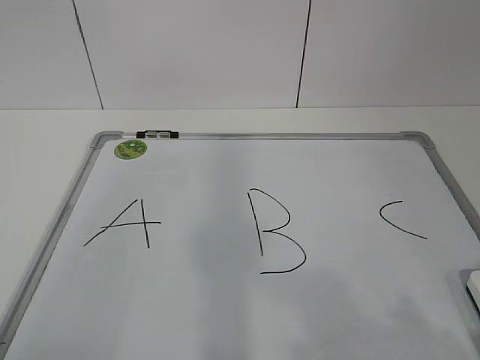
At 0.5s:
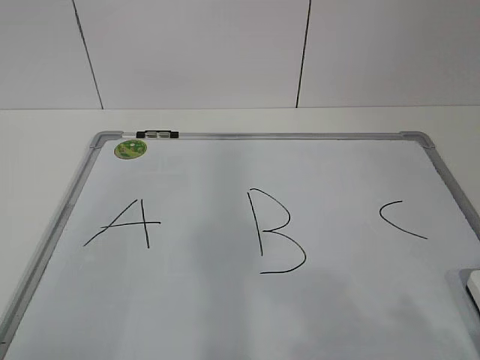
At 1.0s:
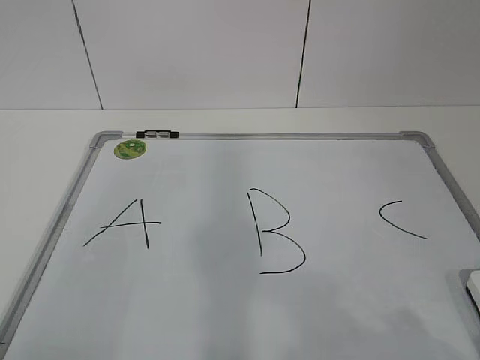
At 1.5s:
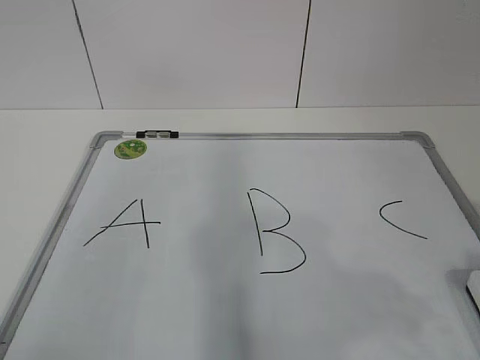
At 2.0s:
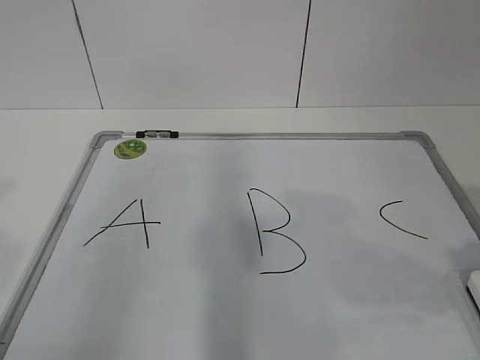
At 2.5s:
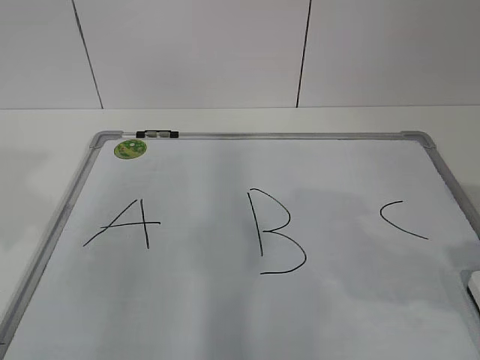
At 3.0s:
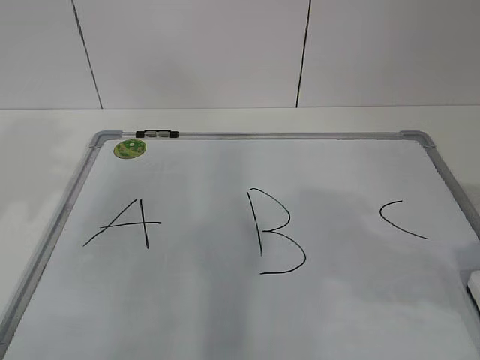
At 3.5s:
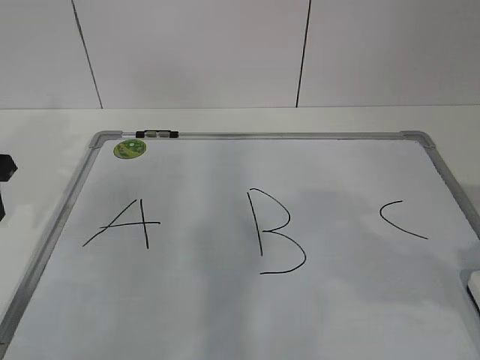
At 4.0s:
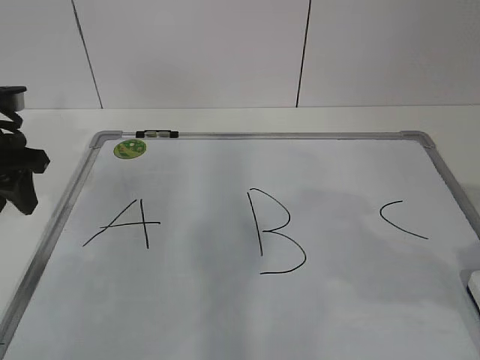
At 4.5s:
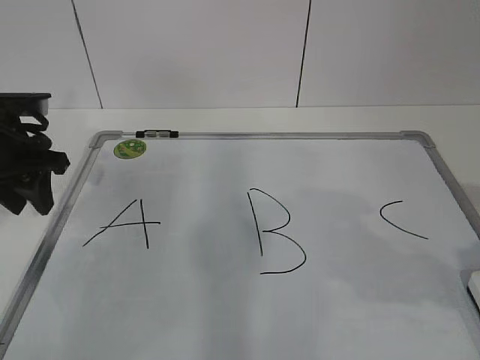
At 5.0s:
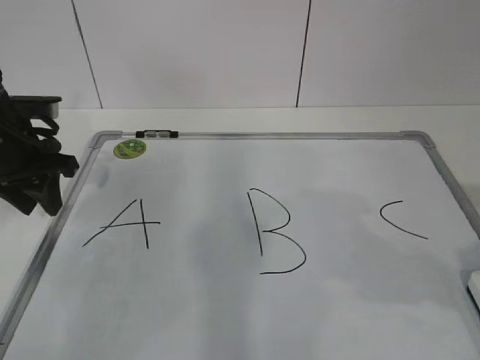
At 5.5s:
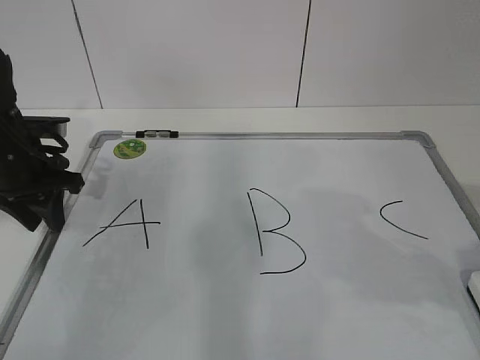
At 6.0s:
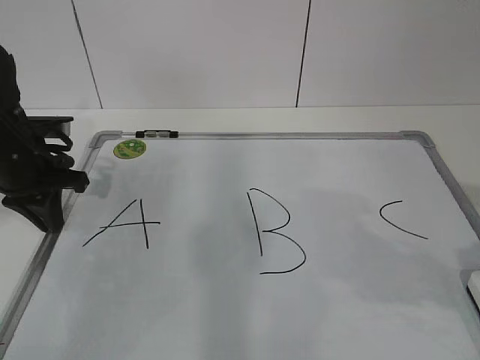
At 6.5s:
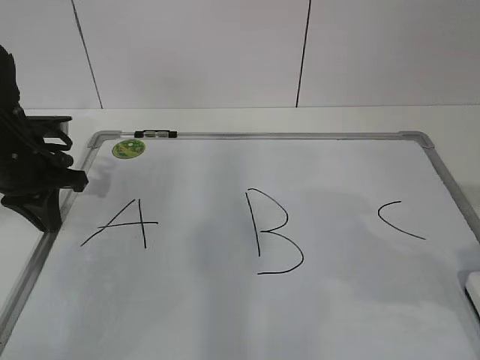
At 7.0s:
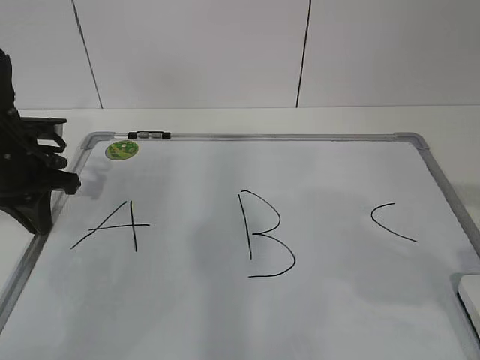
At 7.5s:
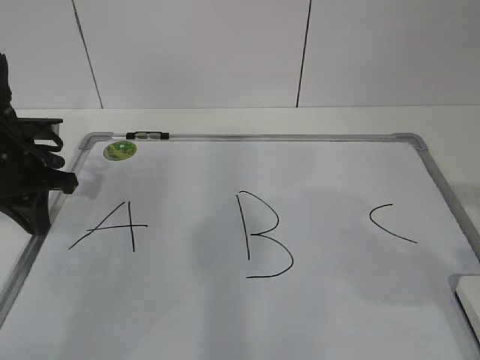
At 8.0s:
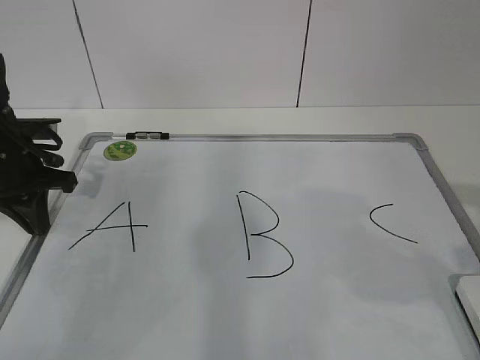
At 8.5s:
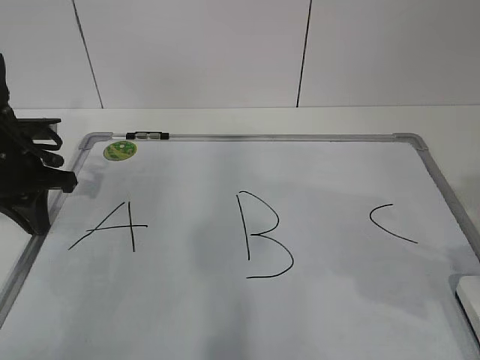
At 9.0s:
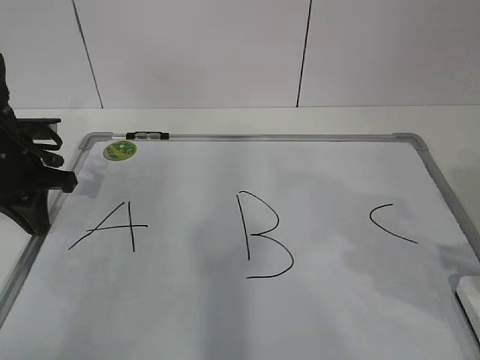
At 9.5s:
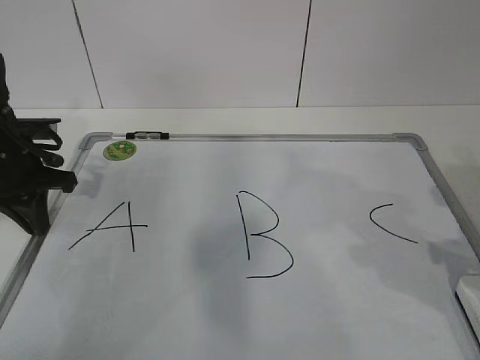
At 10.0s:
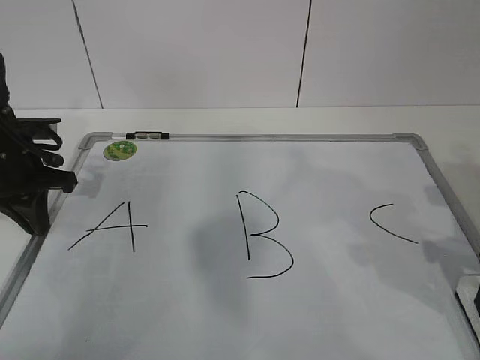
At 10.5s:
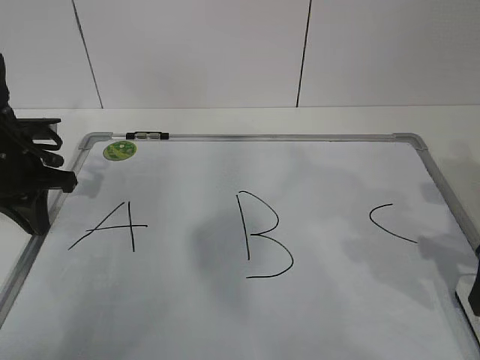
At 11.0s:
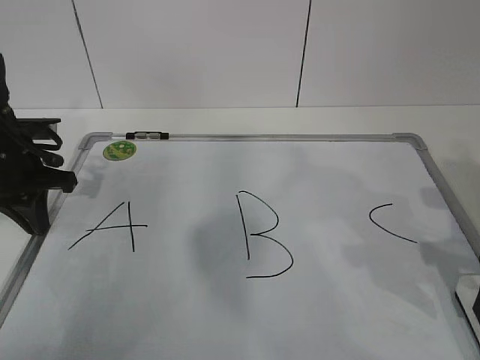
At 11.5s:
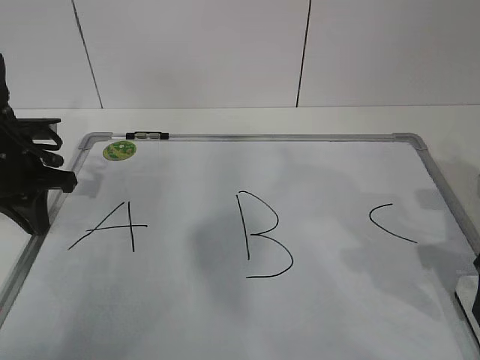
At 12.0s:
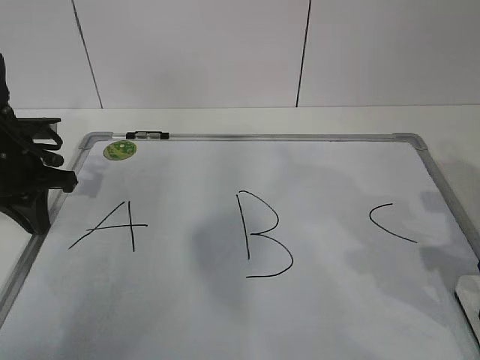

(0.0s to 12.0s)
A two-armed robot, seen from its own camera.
Task of the whole recording: pick up the eraser on the blackboard and erase the letter "B".
Step, 0.0s - 4.5s: Hold the drawing board steady with your left hand.
Step, 5.5s - 11.0s: Grab the eraser with your right hand.
2.0s - 4.0s: The left gripper heads forward and downward, covering approximately 30 cm.
4.0s - 6.0s: The left gripper travels downward by some 5 cm, and closes up.
6.0s - 8.0s: The right gripper opens.
8.0s - 10.0s: The right gripper travels forward and downward by approximately 15 cm, and opens its fingers.

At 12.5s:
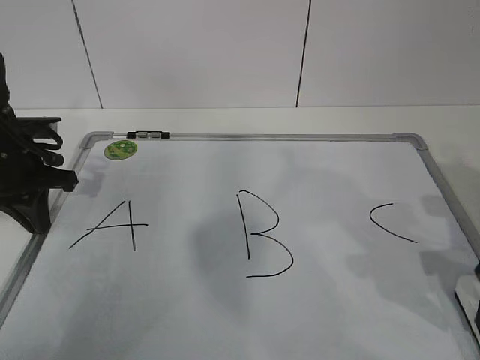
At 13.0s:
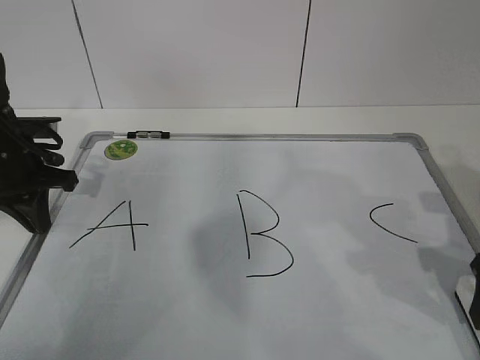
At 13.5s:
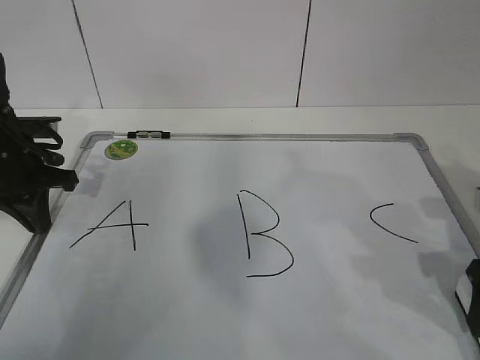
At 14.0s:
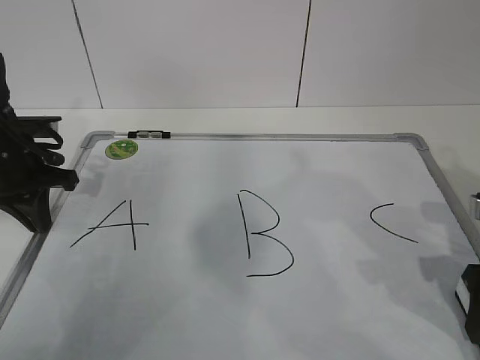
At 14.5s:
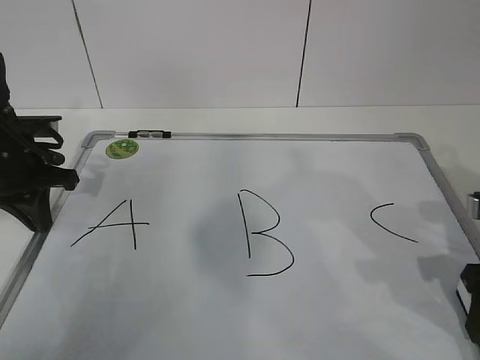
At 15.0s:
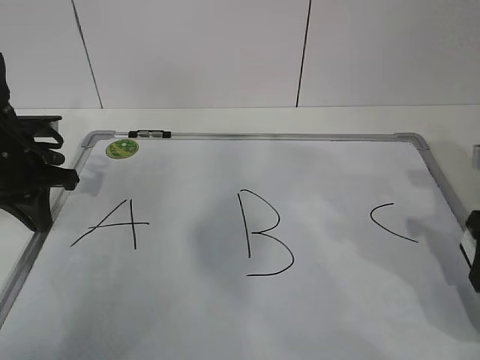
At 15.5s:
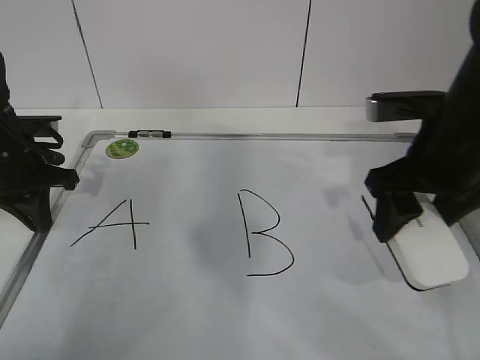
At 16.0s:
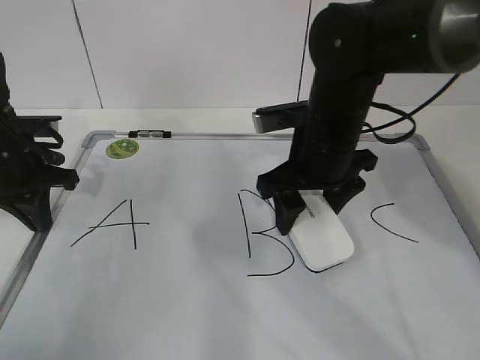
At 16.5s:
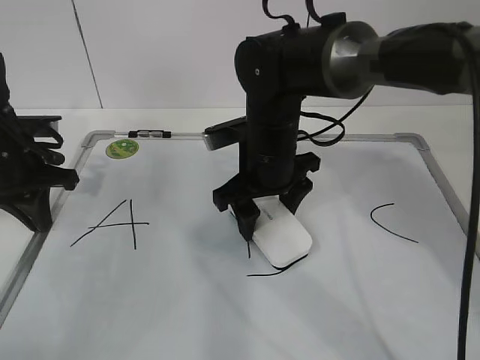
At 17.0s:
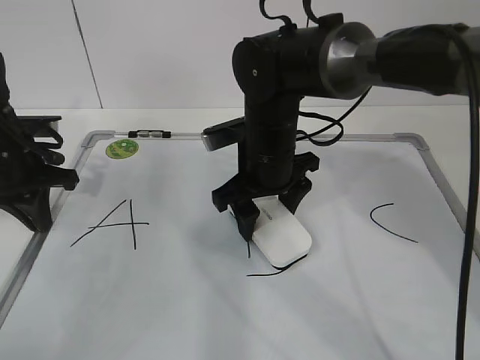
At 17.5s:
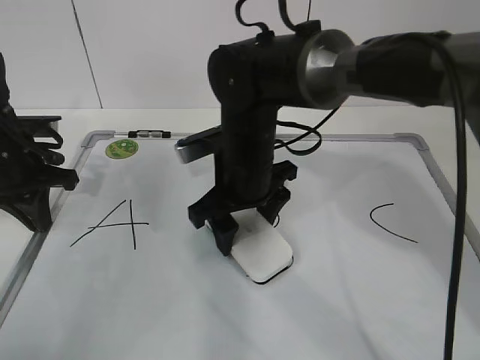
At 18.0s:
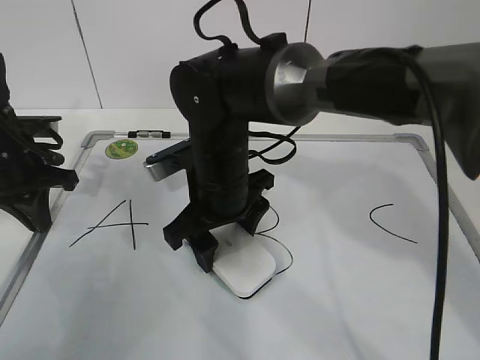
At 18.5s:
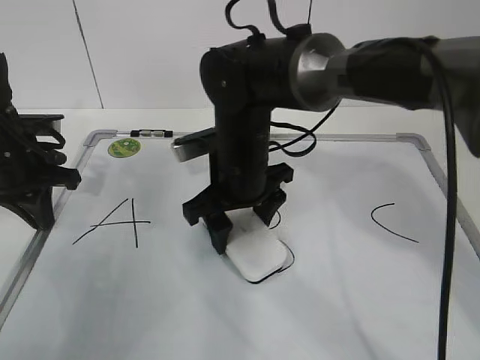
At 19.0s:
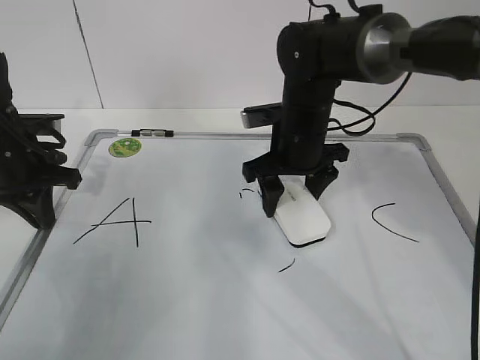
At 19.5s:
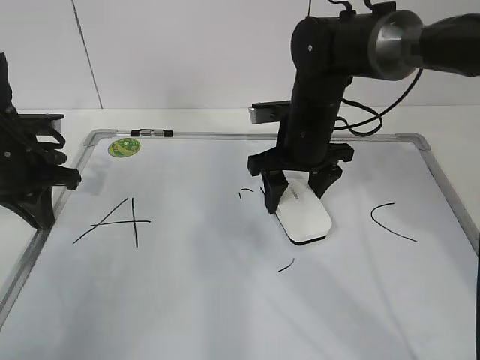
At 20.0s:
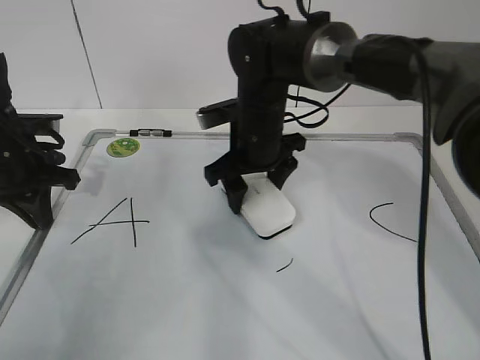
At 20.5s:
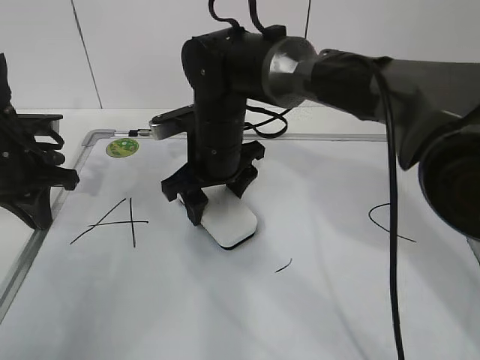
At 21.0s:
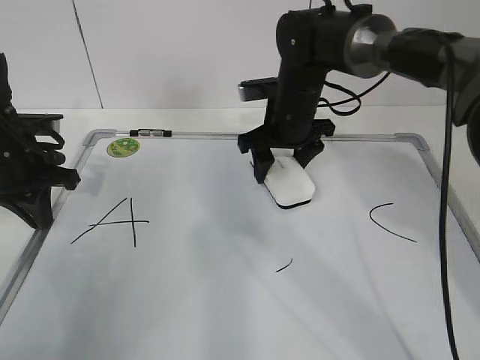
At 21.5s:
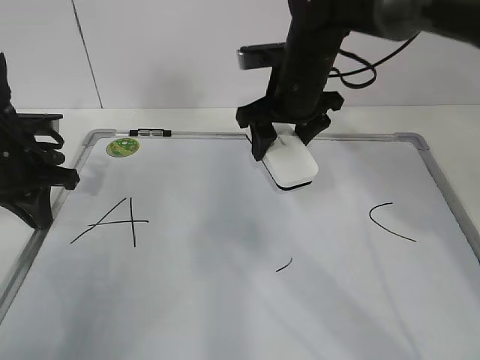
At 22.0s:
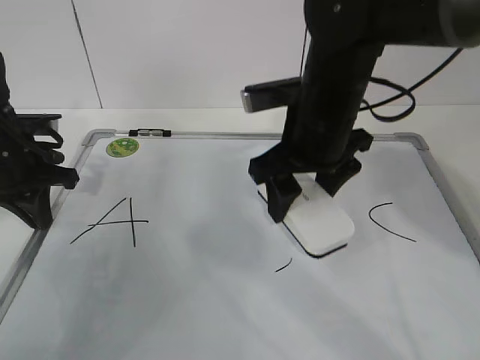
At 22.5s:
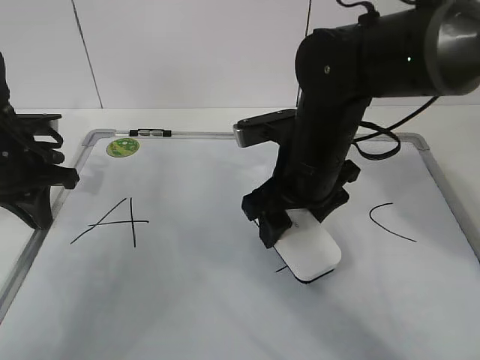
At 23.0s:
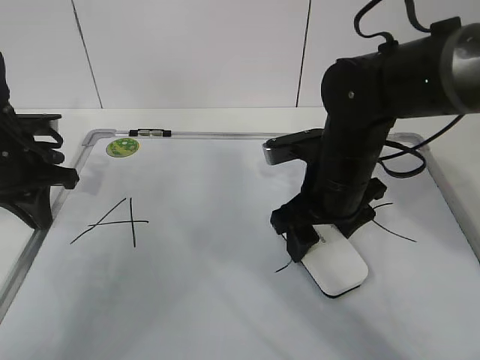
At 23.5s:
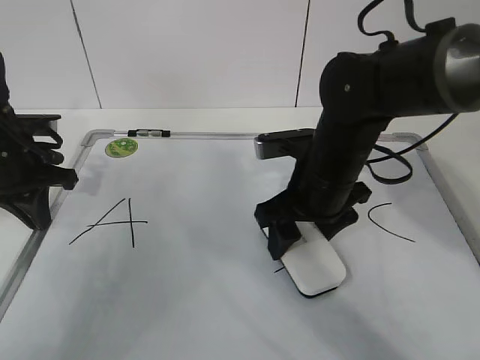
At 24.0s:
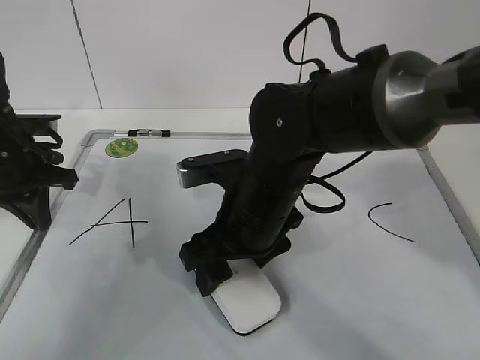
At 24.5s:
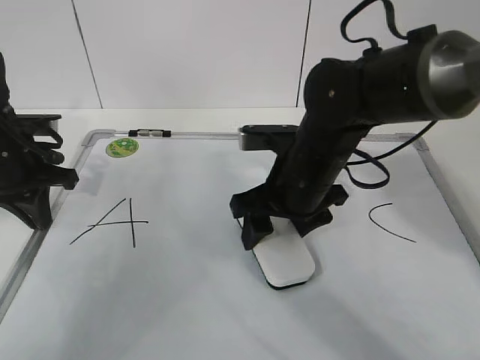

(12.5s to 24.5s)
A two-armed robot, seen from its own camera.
Task of the whole recording: pick up the eraser on the blackboard and erase the letter "B".
Step, 12.5s - 20.5s: Erase the letter B with your right hand.
Step, 21.0s - 24.0s: Put down the eraser with your right hand.
12.5s - 14.5s: The right gripper closes.
14.5s - 16.5s: The right gripper is displaced to the left and forward by about 30 cm.
18.5s - 20.5s: The right gripper travels to the right and back again, approximately 10 cm each way.
20.5s - 22.5s: The right gripper travels to the right and backward by about 10 cm.
22.5s - 24.5s: The right gripper goes to the left and returns, roughly 5 cm each way.

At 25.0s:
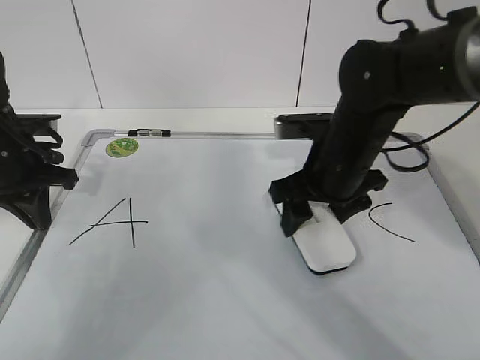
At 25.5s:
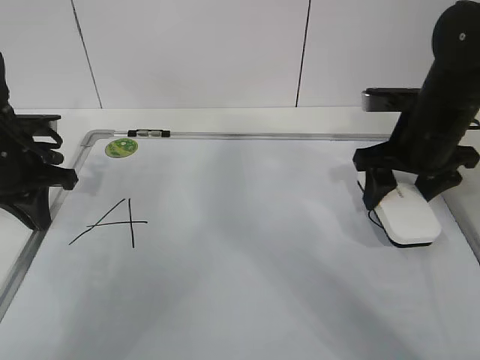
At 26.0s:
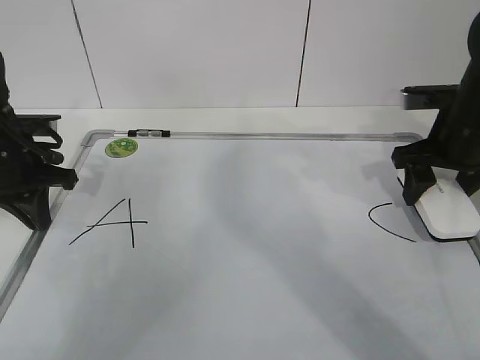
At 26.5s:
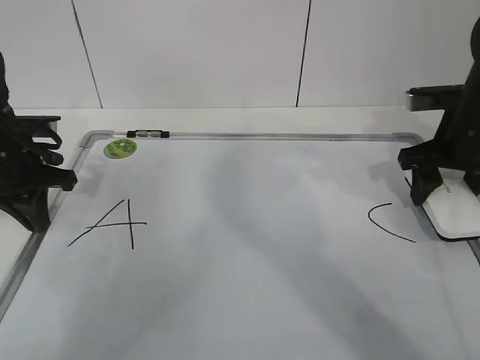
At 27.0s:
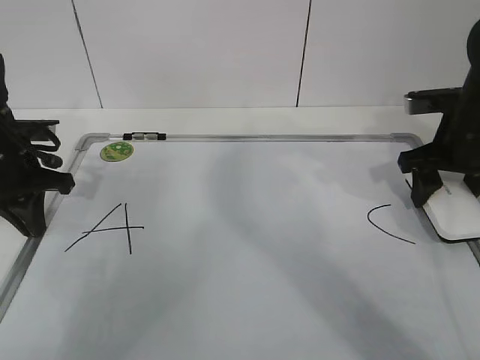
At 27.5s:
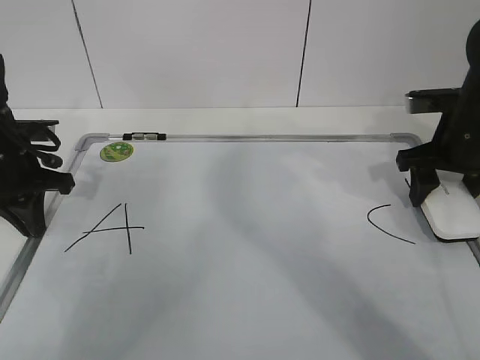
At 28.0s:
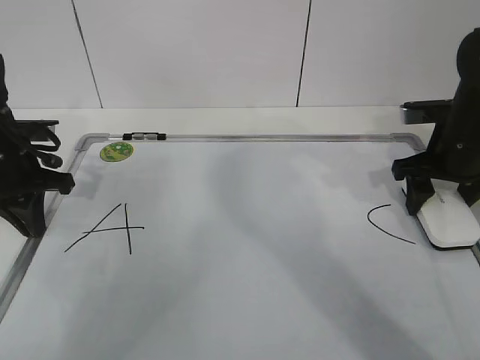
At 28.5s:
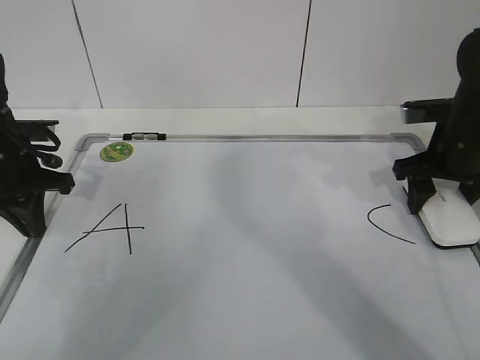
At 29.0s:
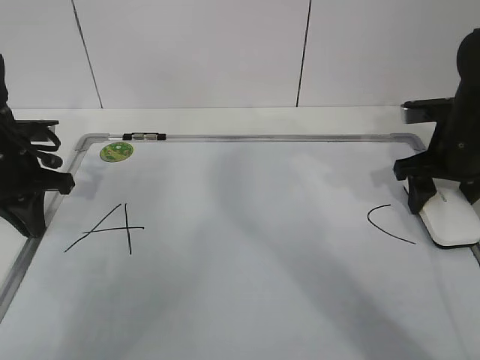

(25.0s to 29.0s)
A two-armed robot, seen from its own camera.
Task of the whole recording: pick up the eraser on the blackboard and erase the letter "B".
25.0s - 27.0s: The right gripper heads to the right, covering roughly 15 cm.
27.0s - 29.0s: The grippers move only a little.
